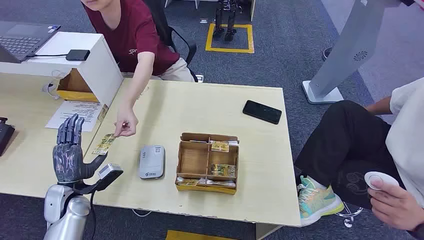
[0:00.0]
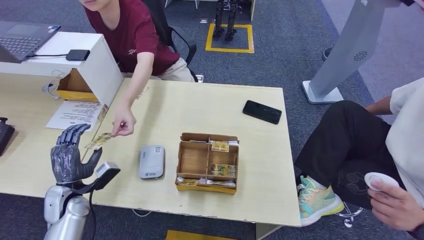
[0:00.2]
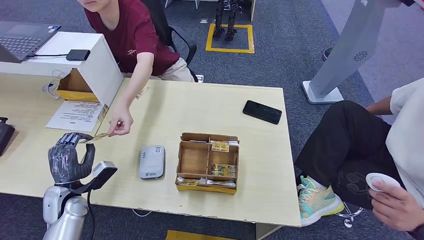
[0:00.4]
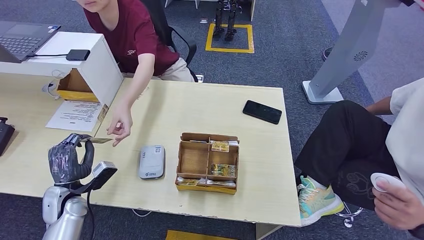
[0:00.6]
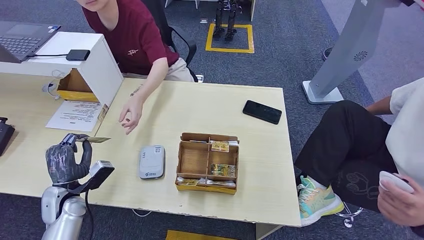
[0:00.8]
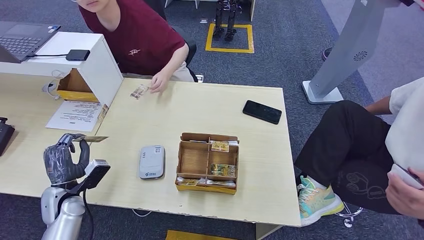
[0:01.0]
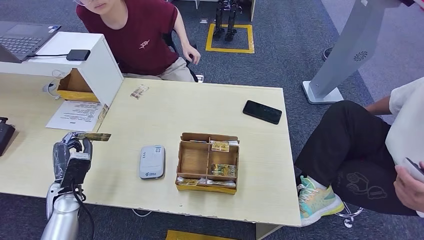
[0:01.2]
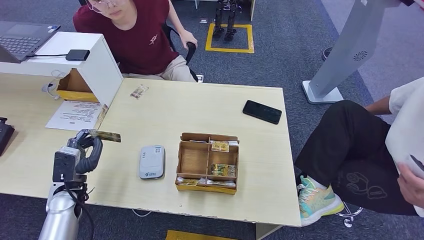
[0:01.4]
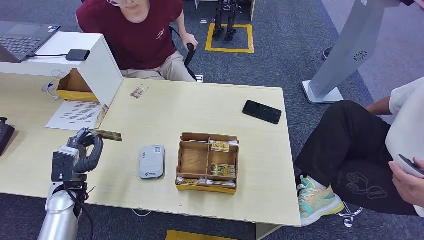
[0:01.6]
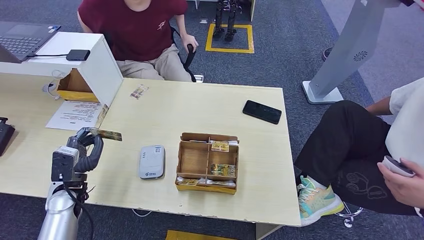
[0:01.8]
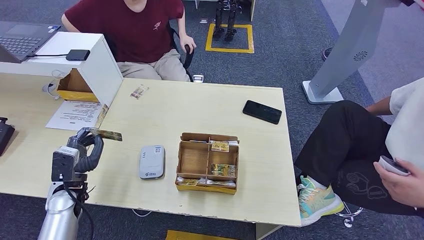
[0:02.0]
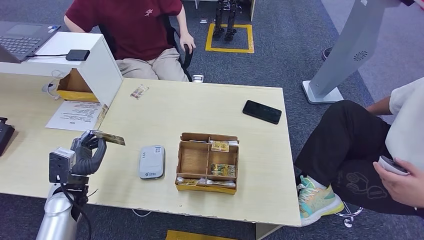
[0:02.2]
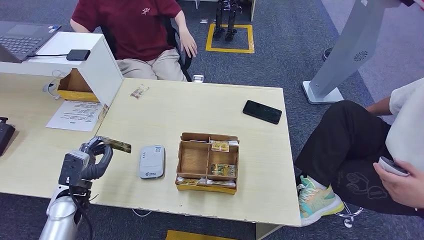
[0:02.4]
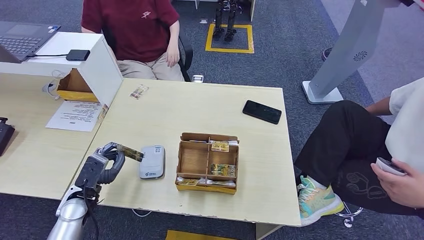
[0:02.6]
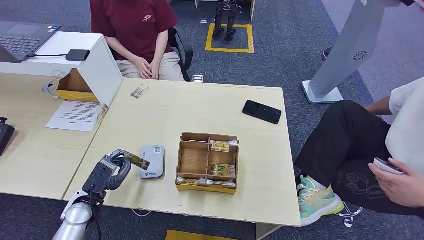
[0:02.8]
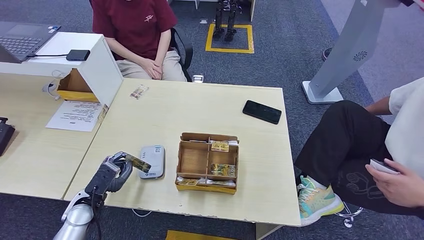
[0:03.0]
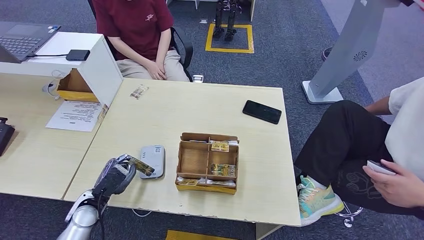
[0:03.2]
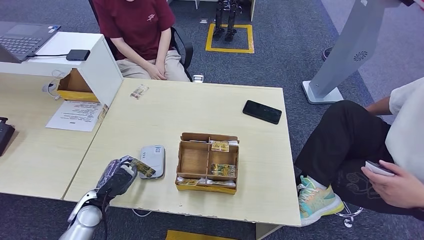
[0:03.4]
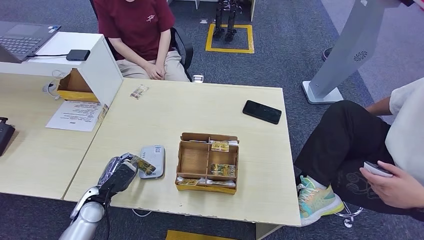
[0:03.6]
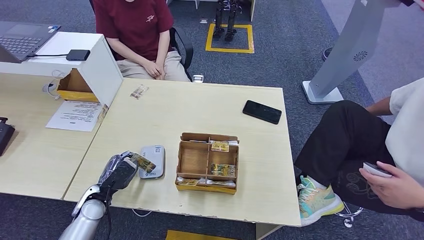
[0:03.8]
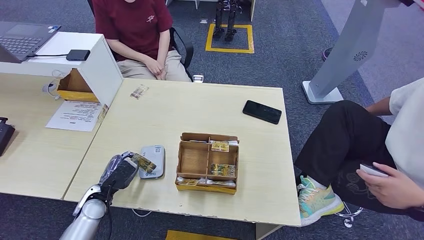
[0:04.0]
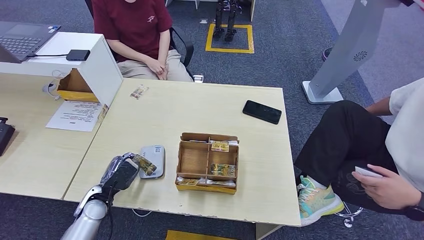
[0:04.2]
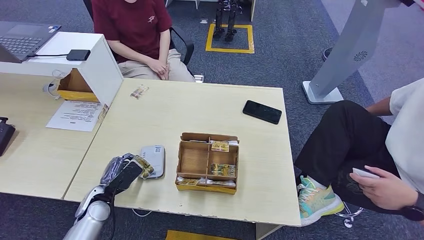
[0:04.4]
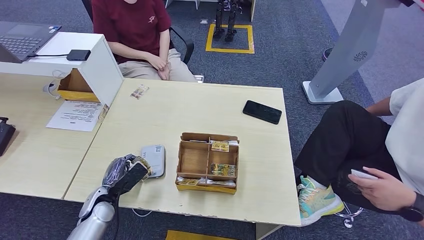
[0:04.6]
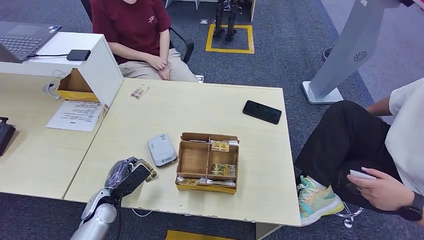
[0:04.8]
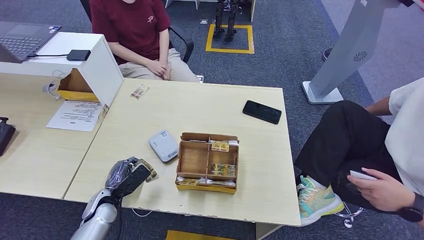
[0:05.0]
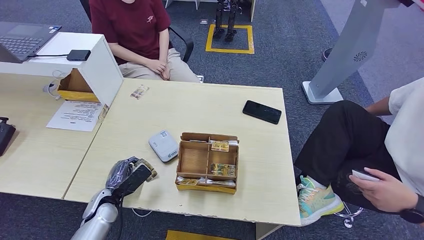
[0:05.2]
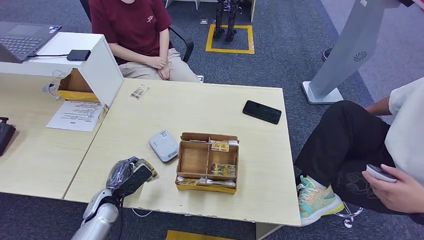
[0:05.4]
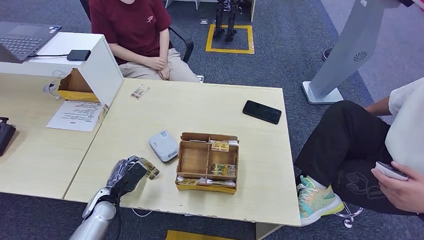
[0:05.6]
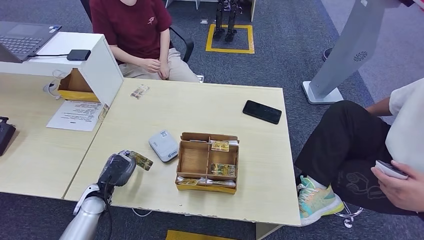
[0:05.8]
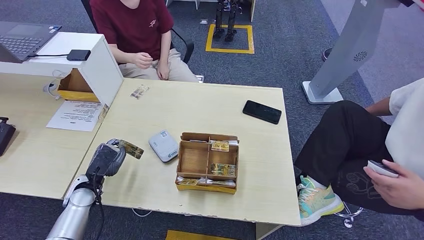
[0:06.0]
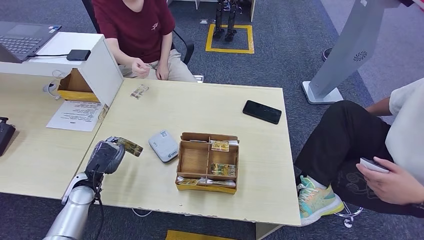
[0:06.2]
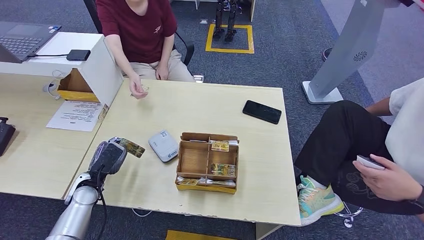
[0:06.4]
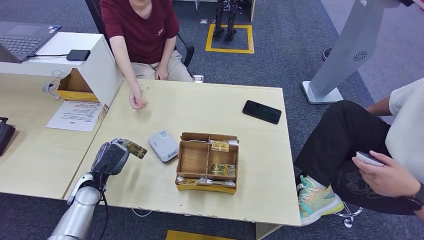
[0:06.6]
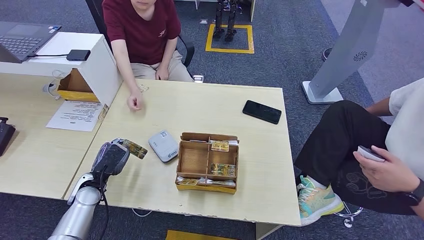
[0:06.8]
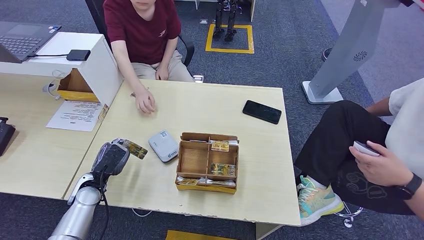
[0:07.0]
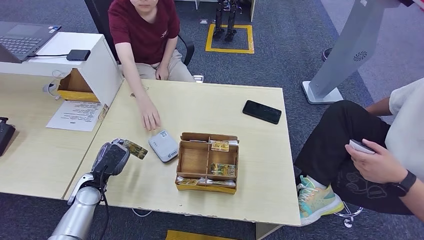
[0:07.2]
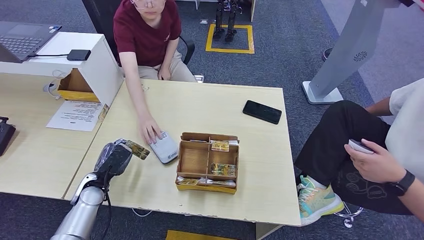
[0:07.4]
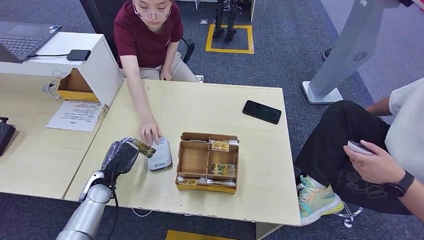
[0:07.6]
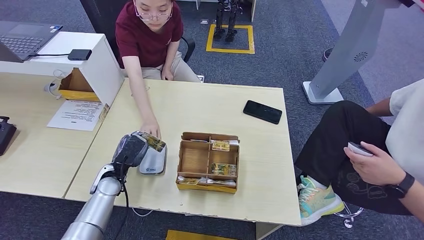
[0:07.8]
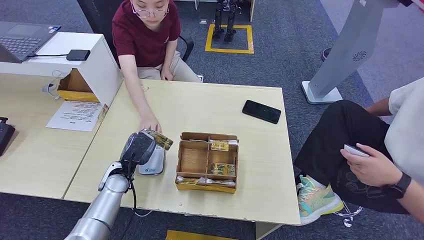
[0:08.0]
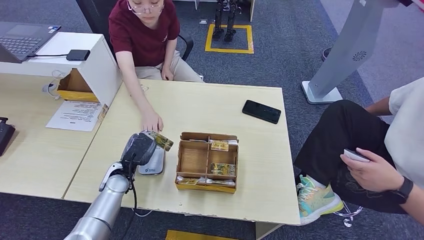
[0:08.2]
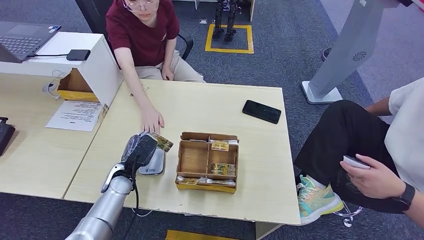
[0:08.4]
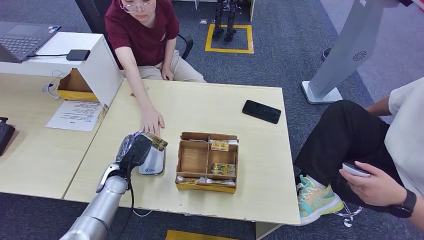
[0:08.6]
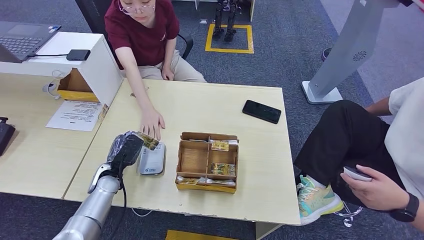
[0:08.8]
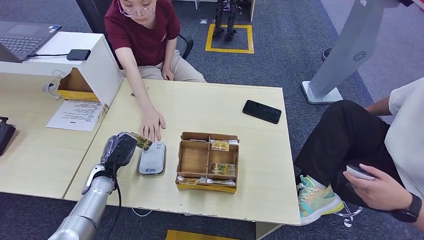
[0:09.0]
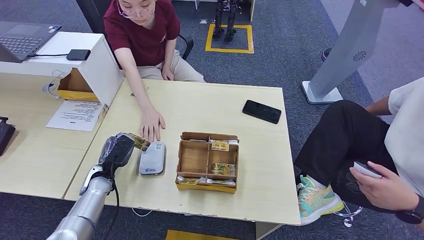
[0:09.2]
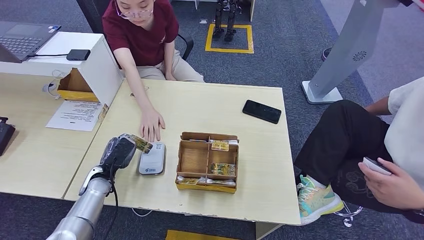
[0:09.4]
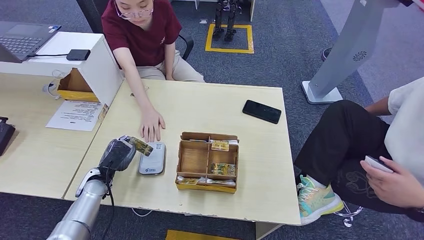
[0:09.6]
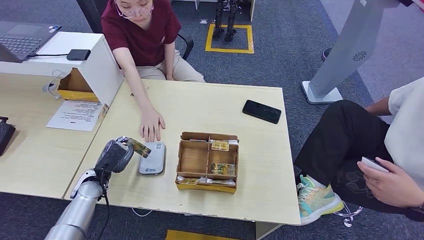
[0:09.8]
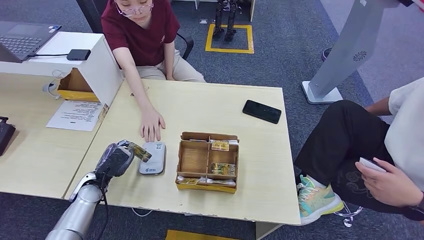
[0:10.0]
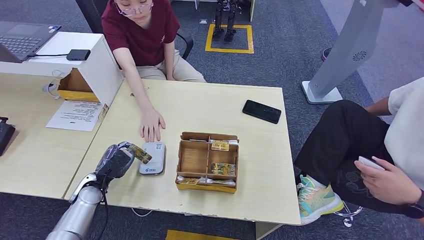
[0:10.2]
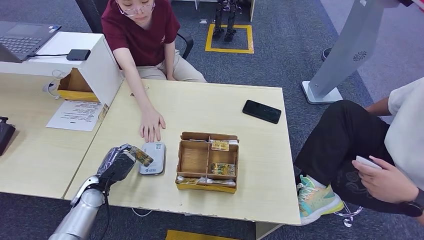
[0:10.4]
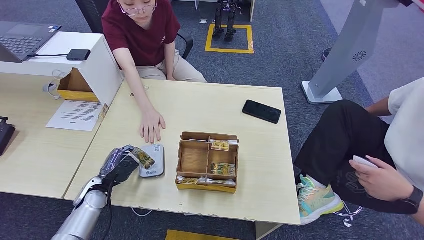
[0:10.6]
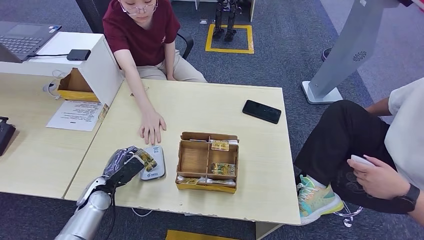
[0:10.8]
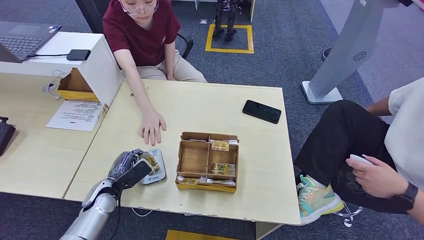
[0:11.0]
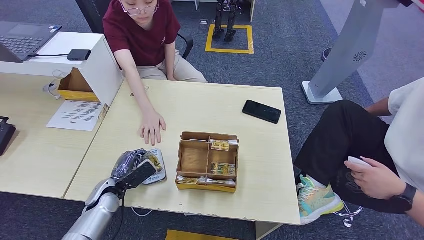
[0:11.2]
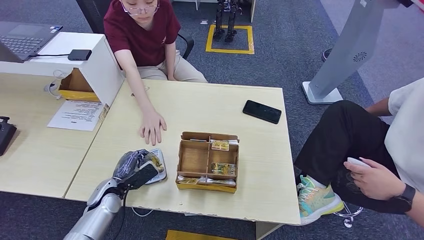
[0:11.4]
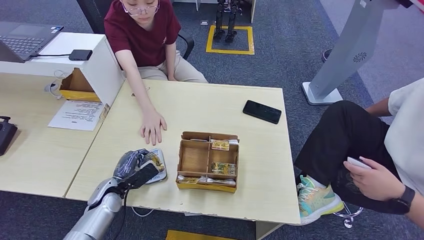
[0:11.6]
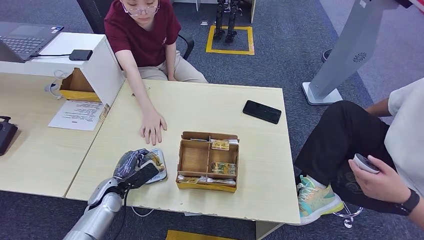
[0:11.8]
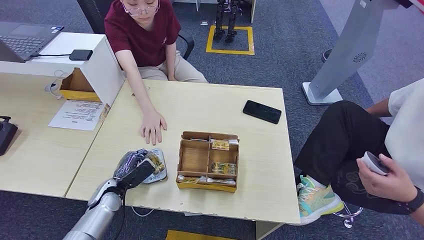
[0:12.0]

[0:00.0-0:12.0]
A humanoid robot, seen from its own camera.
Step, 0:00.0 to 0:01.0: Take the ID card from the person's hand.
0:01.6 to 0:03.0: The left hand moves some 5 cm.
0:04.4 to 0:07.6: The hands make only small movements.
0:07.6 to 0:10.4: The hands move only a little.
0:10.4 to 0:12.0: The hands move only a little.

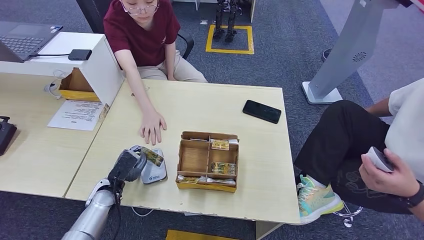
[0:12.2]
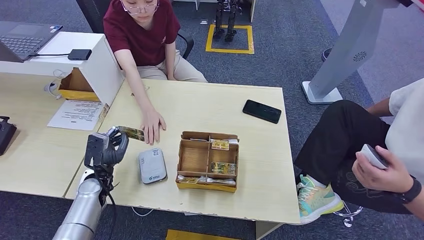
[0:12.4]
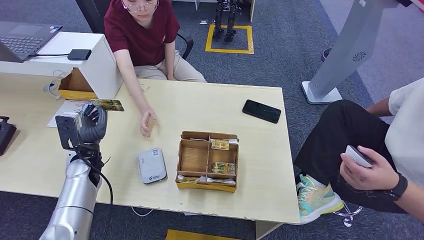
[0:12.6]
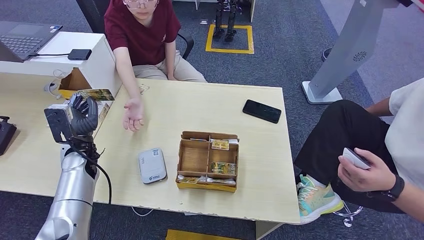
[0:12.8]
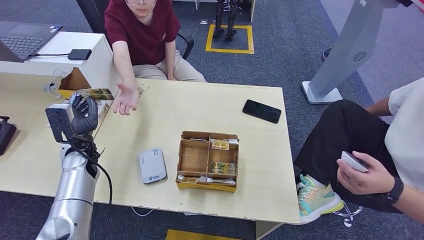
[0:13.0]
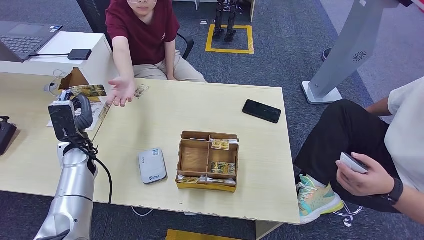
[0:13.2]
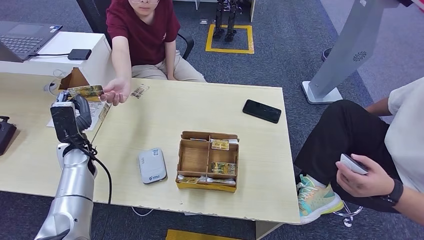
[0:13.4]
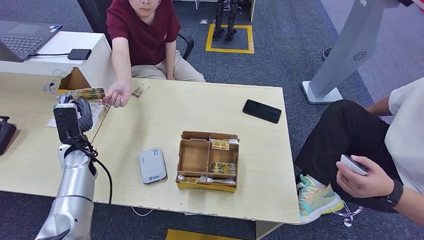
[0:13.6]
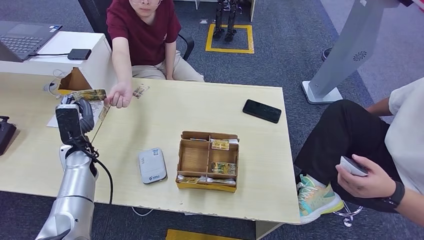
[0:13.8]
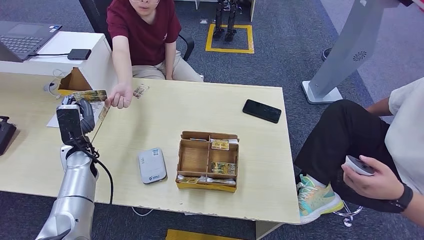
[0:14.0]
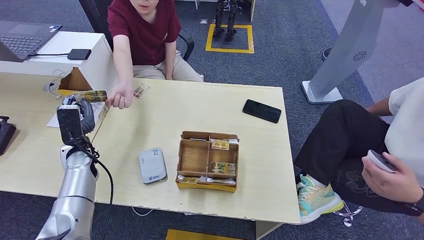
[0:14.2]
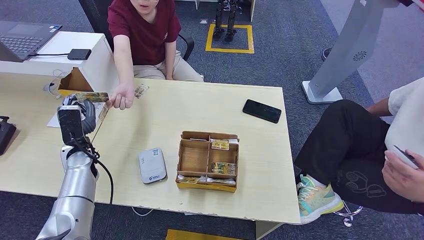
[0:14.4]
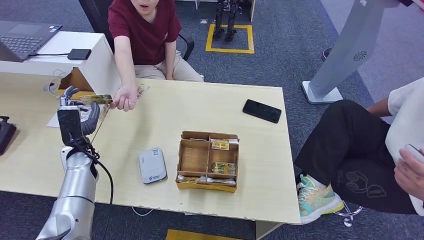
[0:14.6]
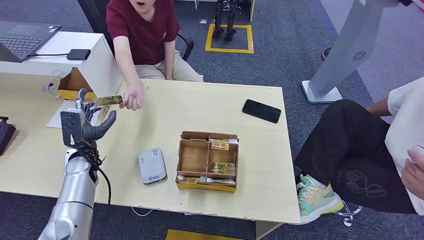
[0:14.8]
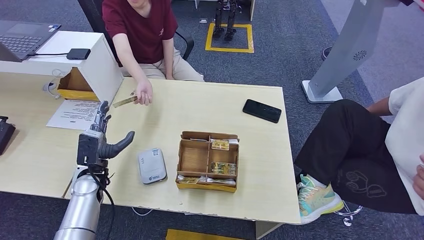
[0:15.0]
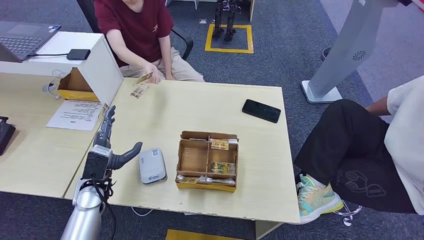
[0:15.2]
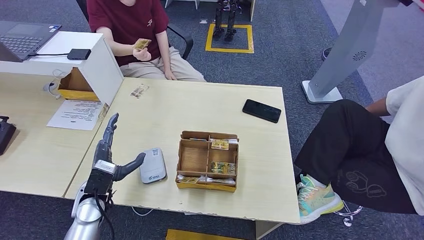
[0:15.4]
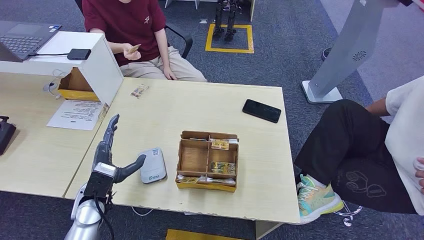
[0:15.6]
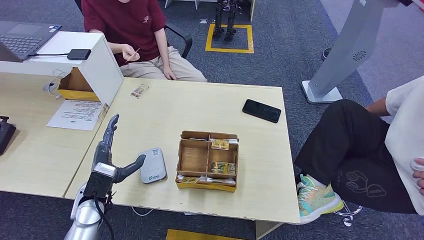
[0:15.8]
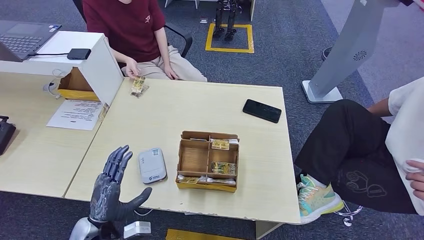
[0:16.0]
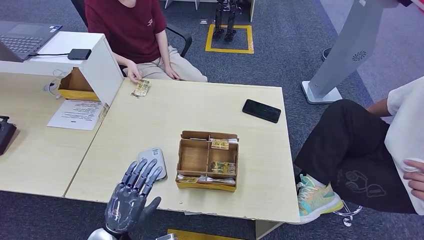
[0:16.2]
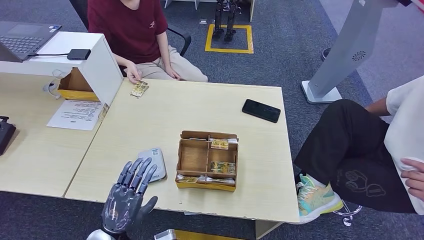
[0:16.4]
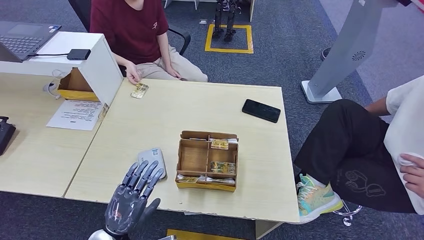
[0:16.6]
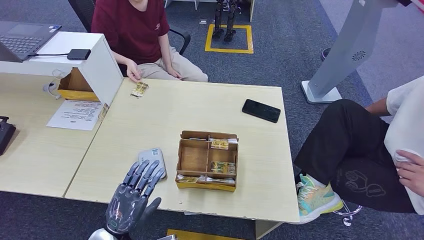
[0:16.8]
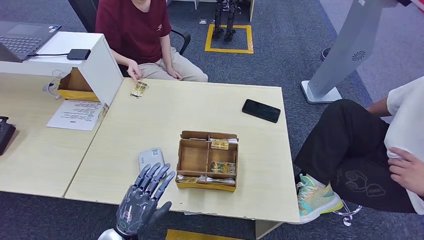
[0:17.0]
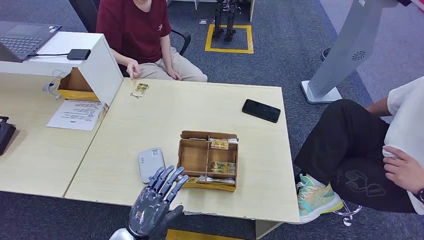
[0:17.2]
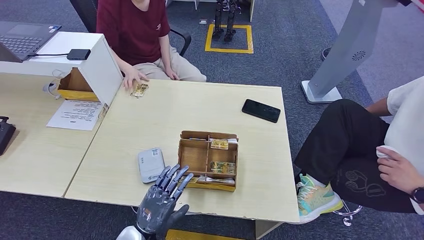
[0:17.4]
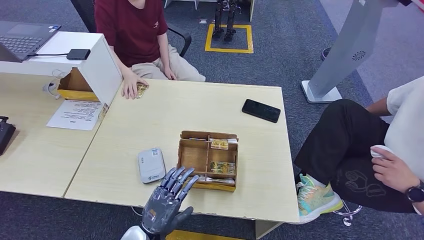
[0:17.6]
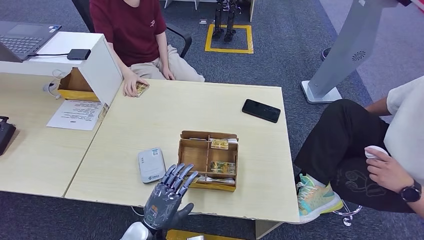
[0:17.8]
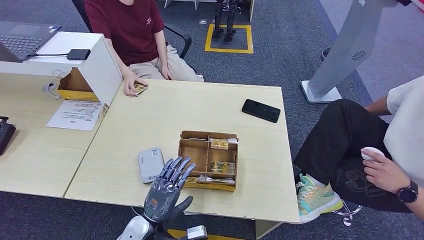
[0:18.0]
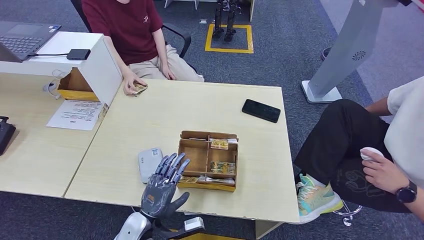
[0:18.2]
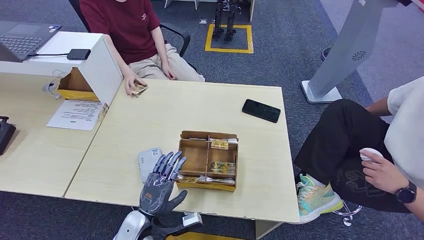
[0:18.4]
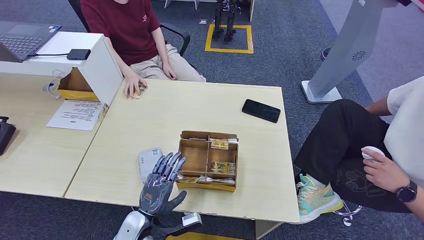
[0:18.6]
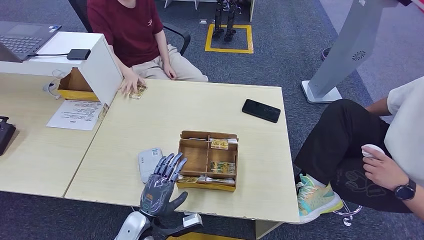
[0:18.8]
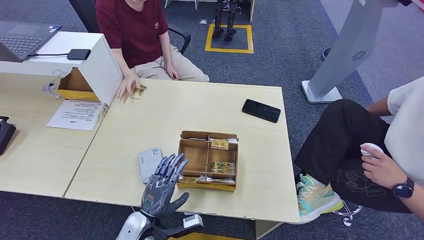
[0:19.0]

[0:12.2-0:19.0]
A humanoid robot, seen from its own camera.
Step, 0:12.2 to 0:15.8: Hand the ID card to the person.
0:12.2 to 0:13.6: The left hand heads upward, forward and to the left, covering about 15 cm.
0:13.6 to 0:15.0: The left hand shifts roughly 5 cm backward.
0:15.0 to 0:16.2: The left hand moves backward and to the right, roughly 20 cm.
0:16.2 to 0:17.6: The left hand moves to the right, roughly 5 cm.
0:17.6 to 0:19.0: The hands move only a little.
